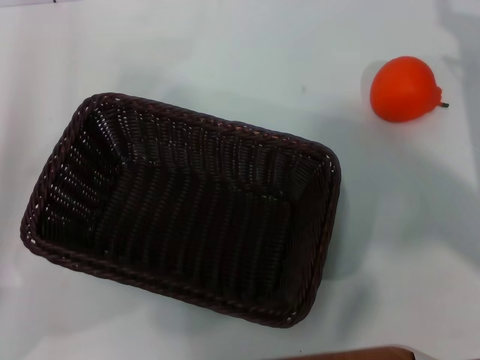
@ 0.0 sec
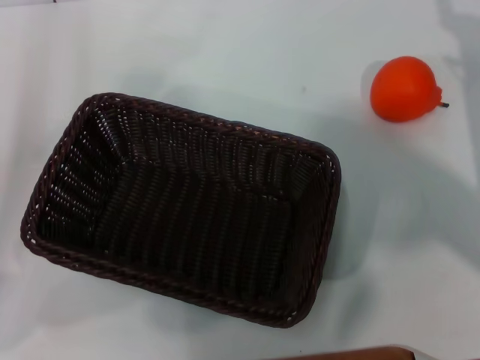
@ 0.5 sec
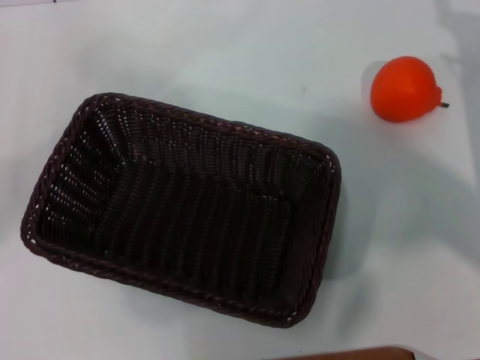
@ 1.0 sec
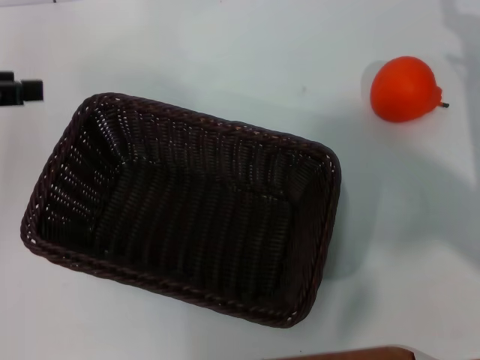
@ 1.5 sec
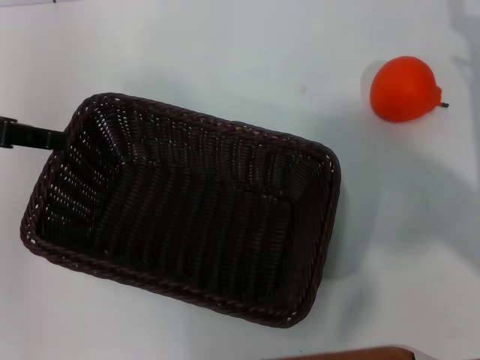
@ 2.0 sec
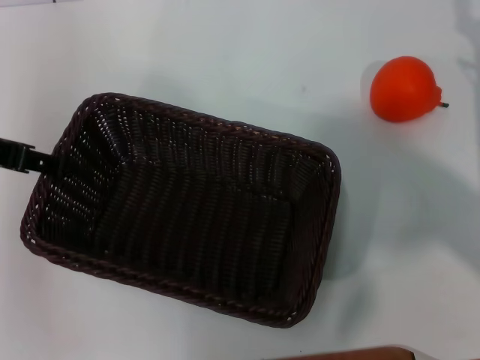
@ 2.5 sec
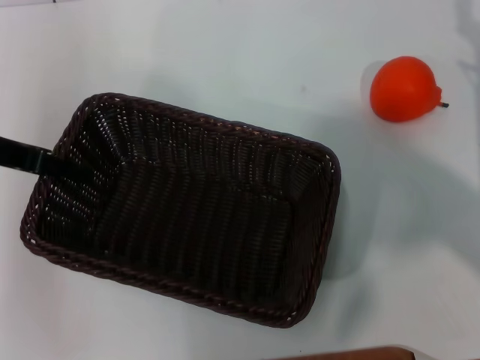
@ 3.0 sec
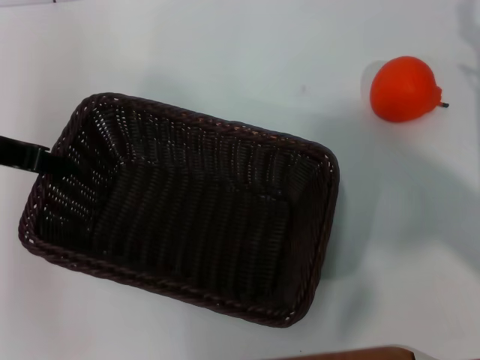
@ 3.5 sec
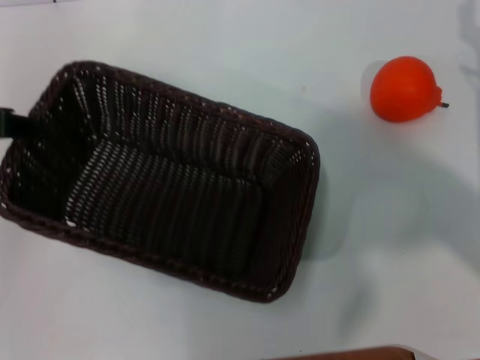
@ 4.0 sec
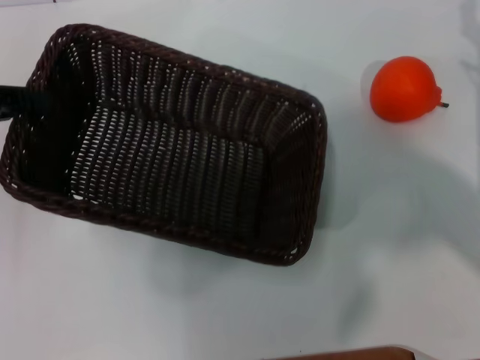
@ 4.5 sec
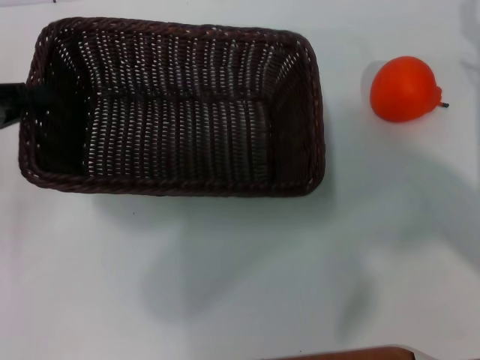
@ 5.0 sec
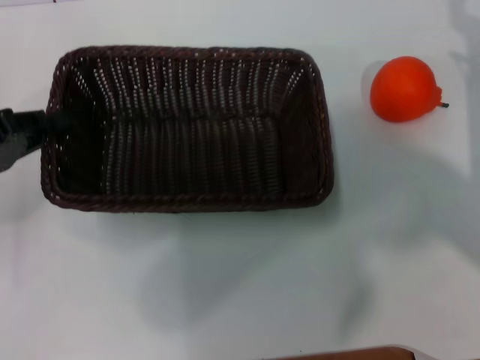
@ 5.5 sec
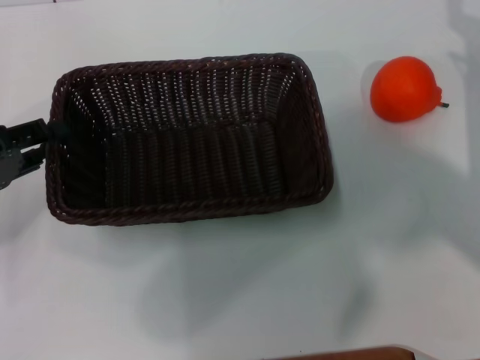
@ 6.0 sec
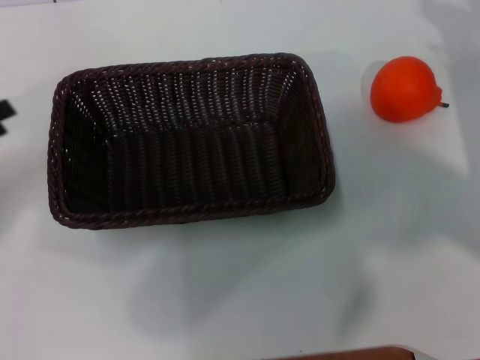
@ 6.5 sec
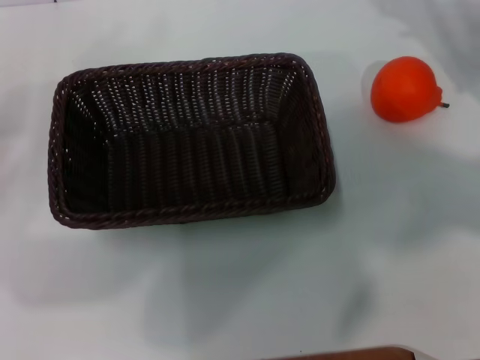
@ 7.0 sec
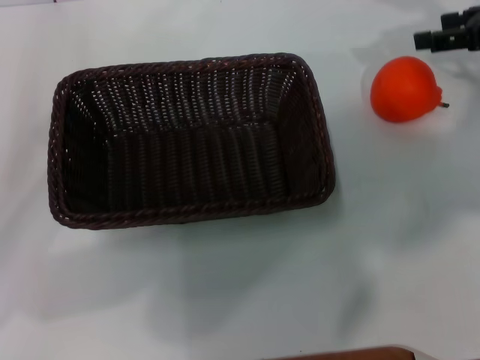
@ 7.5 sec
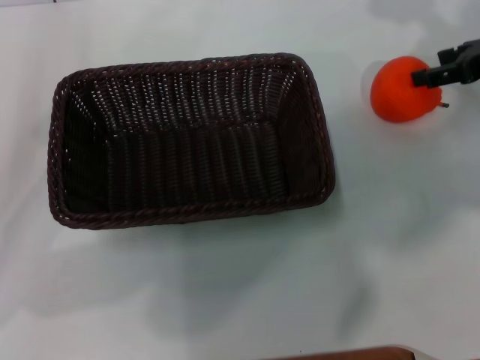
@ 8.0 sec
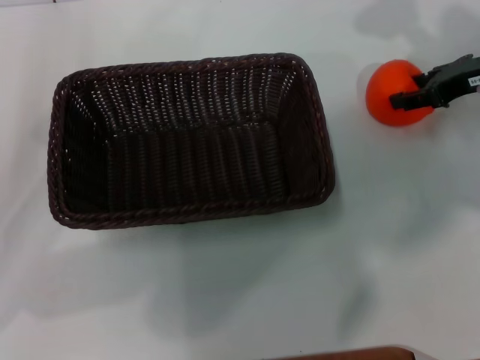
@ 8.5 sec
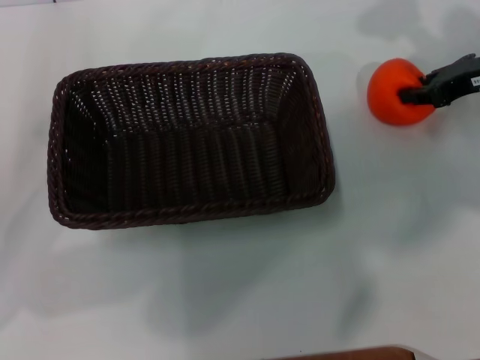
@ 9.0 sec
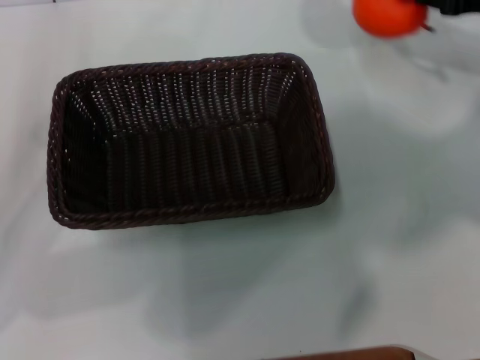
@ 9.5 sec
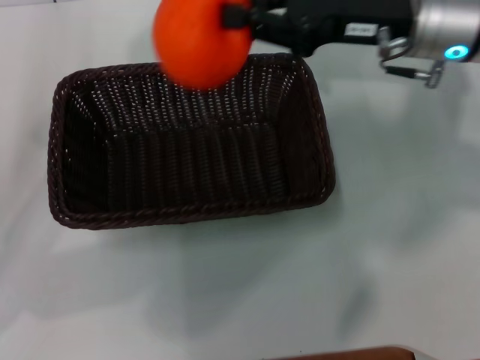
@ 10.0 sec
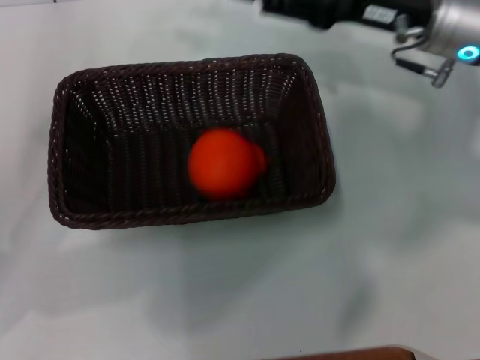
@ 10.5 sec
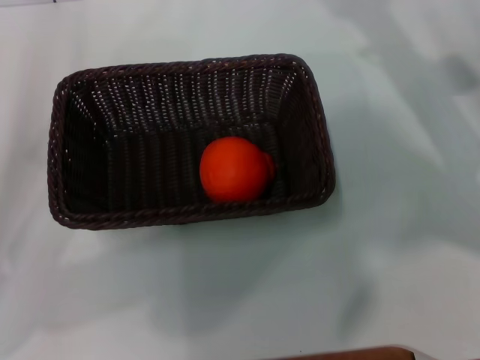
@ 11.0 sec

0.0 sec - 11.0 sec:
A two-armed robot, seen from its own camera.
Task of the whole recording: the left gripper pick up the black basket and place it horizontally in the middle of the table, the right gripper pick up the orange and place it into the black basket.
Step, 0.0 sec - 4.0 sec: Pick up the dark basket with the left gripper.
Step, 4.5 sec - 6.0 sec: Place the dark basket in the center of view with the left gripper.
Step, 6.5 sec - 9.0 sec: Pick up the orange with the right gripper.
Step, 9.5 sec - 10.0 sec: Place the orange into the dark basket with the right gripper.
0.0 sec - 2.0 sec: The left gripper shifts about 15 cm upward and forward.
2.0 sec - 3.5 sec: The left gripper closes its fingers.
3.5 sec - 5.5 sec: The left gripper heads downward and to the left, covering about 10 cm.
5.5 sec - 7.5 sec: The right gripper goes approximately 15 cm upward and forward. The left gripper opens.
7.5 sec - 9.0 sec: The right gripper heads downward, covering some 5 cm, and closes.
9.0 sec - 11.0 sec: The right gripper shifts roughly 5 cm backward, reaches approximately 15 cm to the left, then returns, and opens its fingers.
